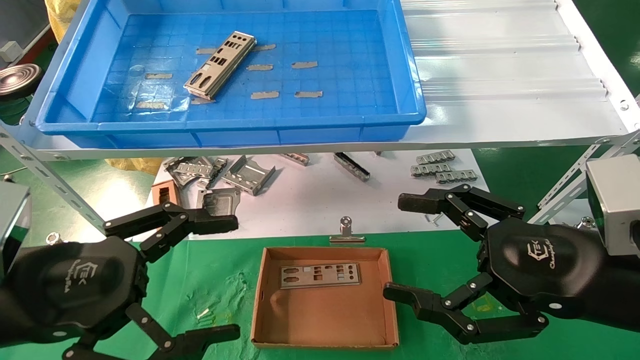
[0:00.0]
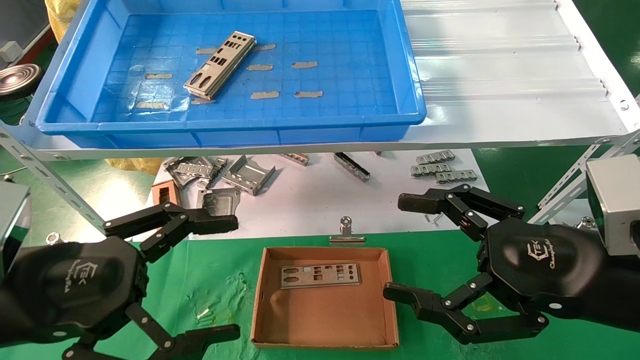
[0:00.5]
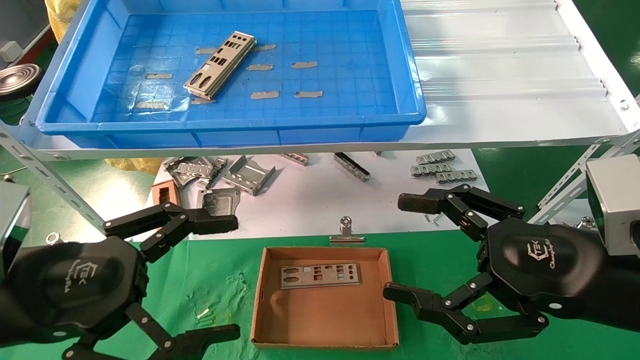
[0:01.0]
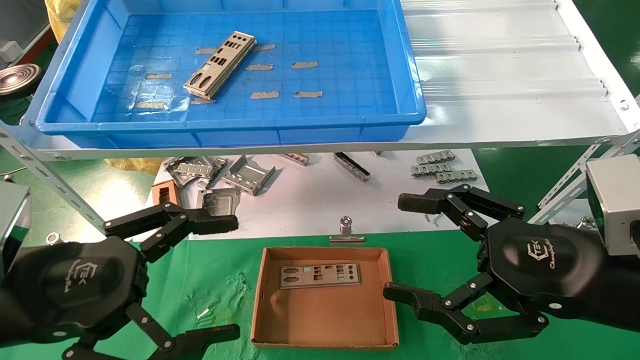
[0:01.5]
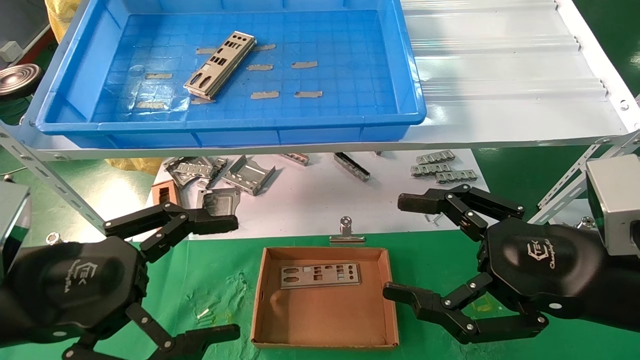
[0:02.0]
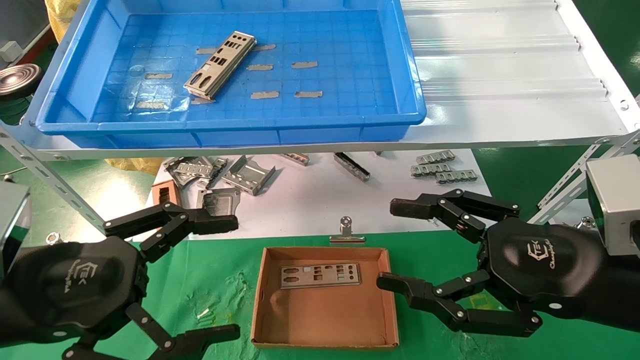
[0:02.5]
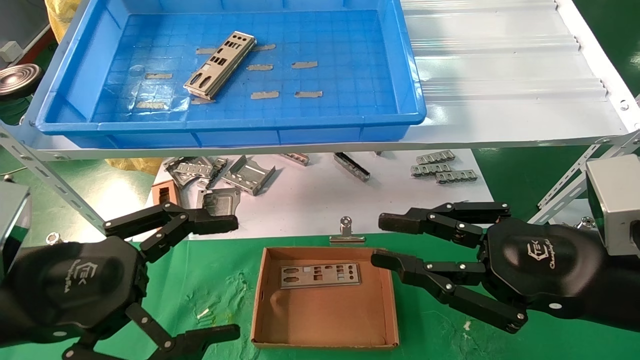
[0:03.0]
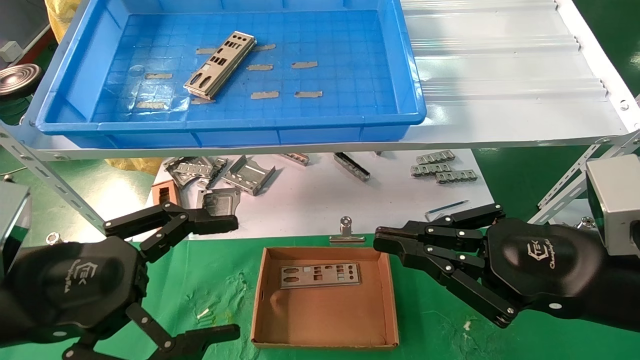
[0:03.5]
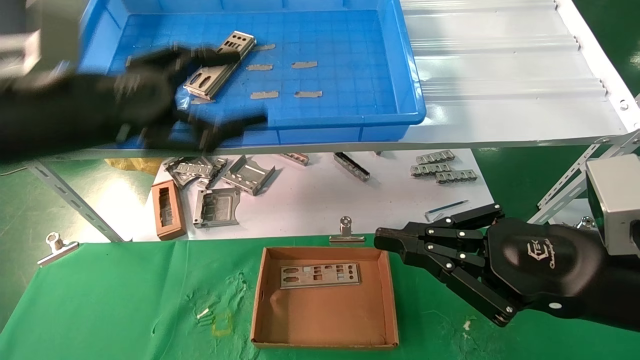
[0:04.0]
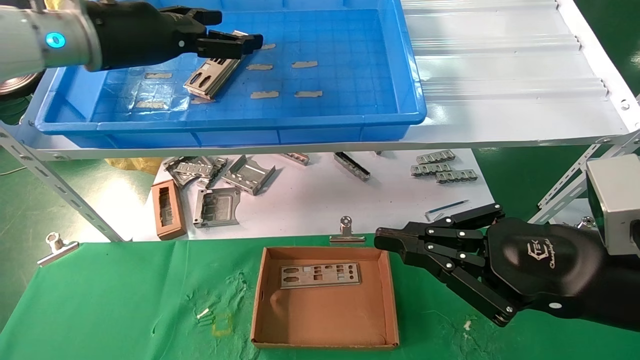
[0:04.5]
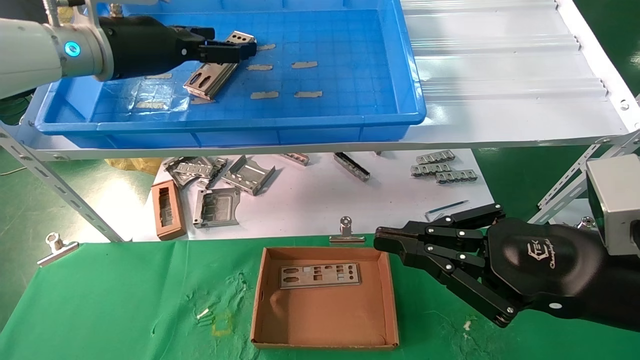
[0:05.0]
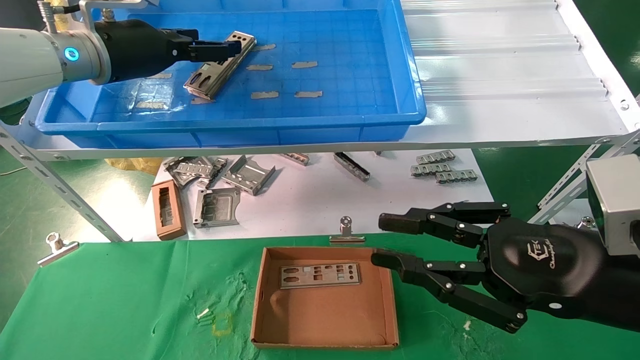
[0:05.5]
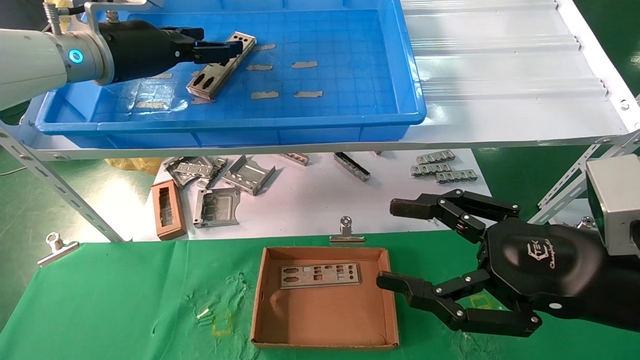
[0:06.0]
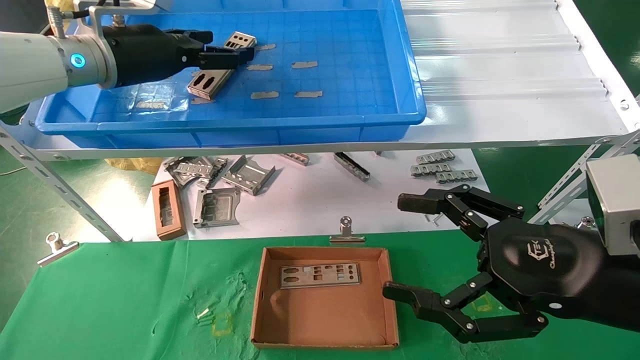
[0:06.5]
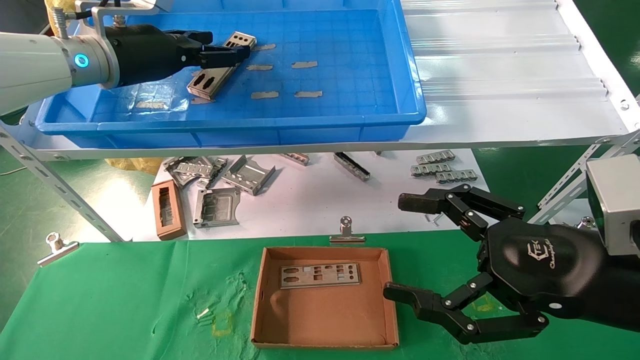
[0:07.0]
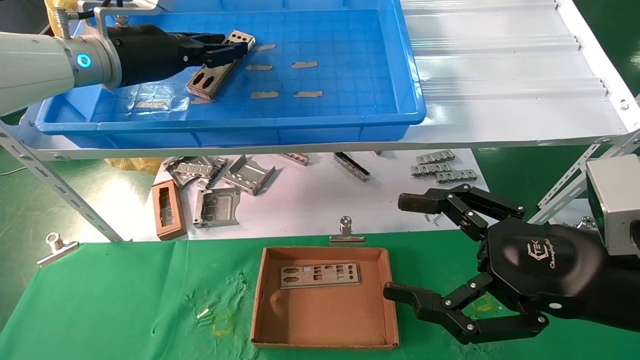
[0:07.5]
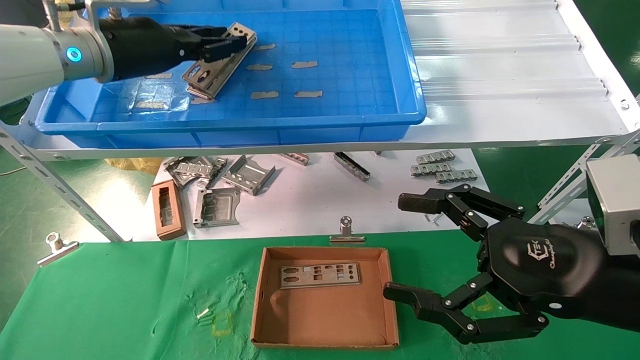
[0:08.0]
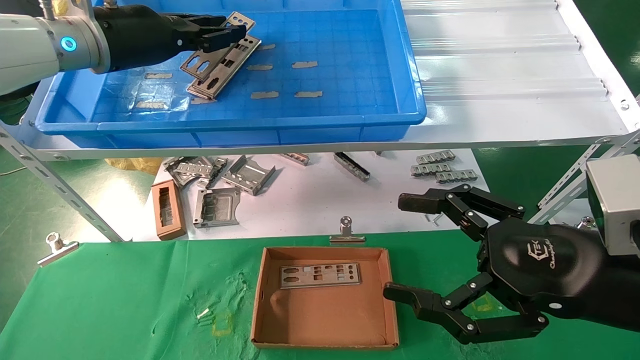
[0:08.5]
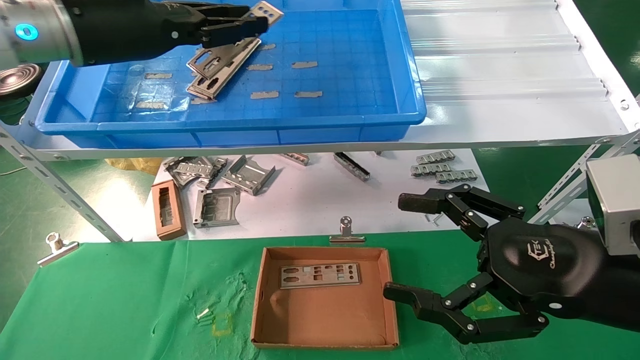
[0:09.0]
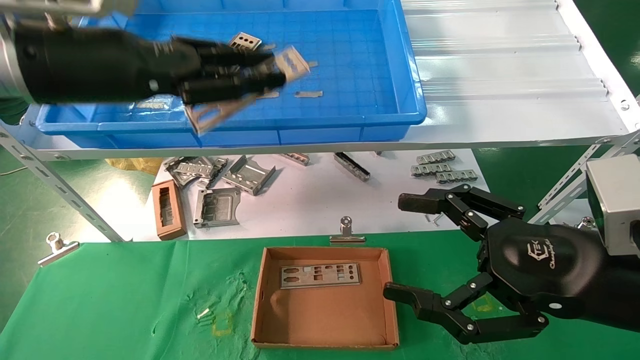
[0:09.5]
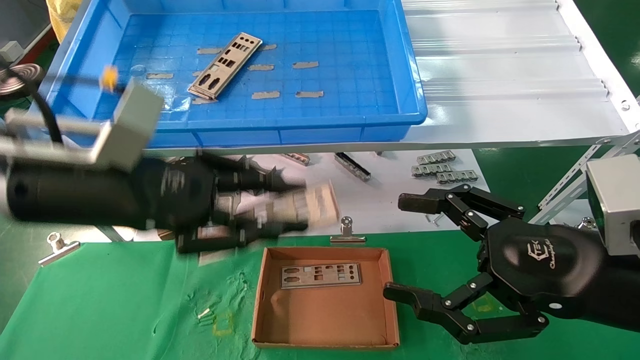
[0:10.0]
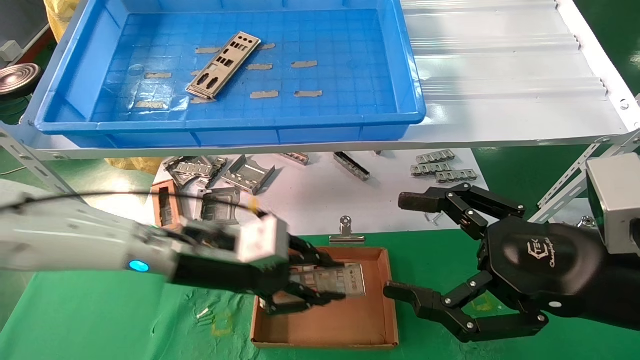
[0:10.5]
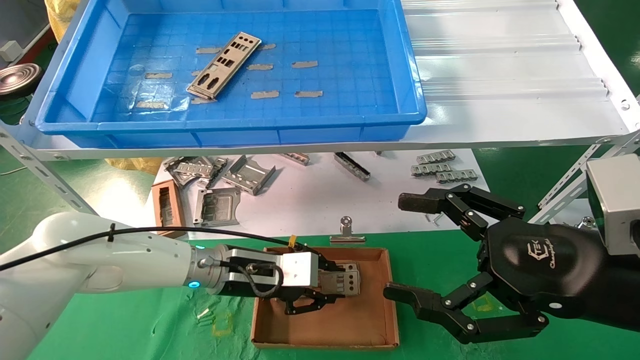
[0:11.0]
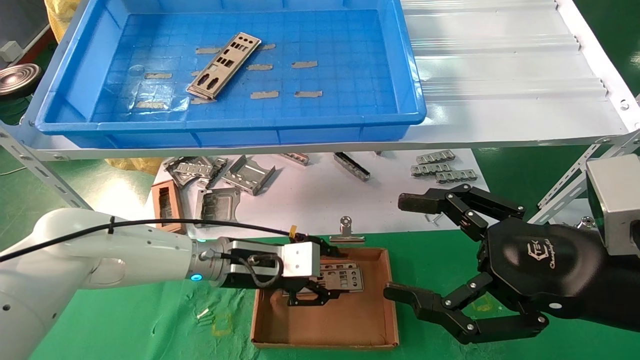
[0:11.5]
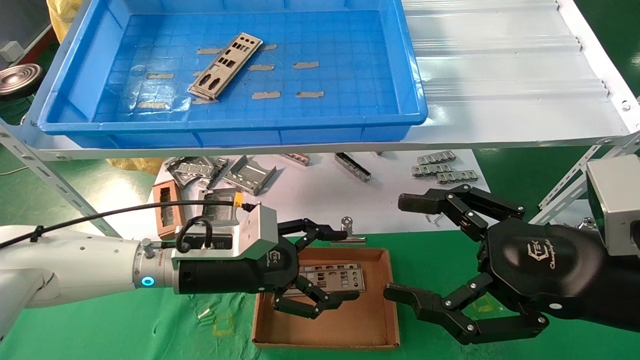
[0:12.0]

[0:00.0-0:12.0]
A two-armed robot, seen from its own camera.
Task of the whole recording: pick up the parts on the tray and put them in the cardboard box.
Step, 0:04.0 to 0:07.5: Pick up the IO bracket from the container box.
Step, 0:08.0 to 0:11.5: Place the IO bracket into the ingredient slot.
0:00.0 to 0:02.0: Both grippers stay about where they are.
0:02.0 to 0:04.0: The left gripper goes roughly 15 cm upward and forward. Meanwhile the right gripper closes its fingers.
0:04.0 to 0:06.0: The right gripper opens its fingers; the left gripper is displaced forward and upward by some 15 cm.
0:06.0 to 0:08.0: The left gripper closes its fingers. Meanwhile the right gripper opens up.
0:08.0 to 0:10.0: The left gripper shifts approximately 20 cm backward and downward.
0:10.0 to 0:12.0: The left gripper travels downward, to the right and forward by about 20 cm, and opens.

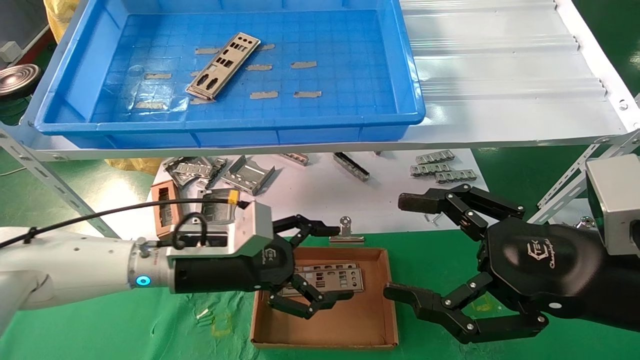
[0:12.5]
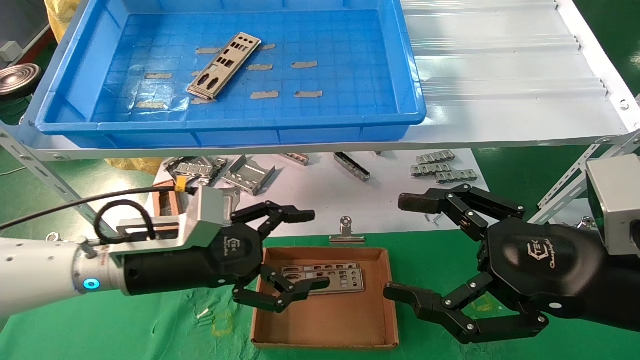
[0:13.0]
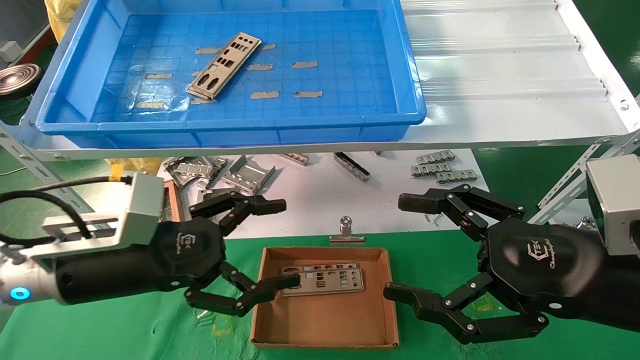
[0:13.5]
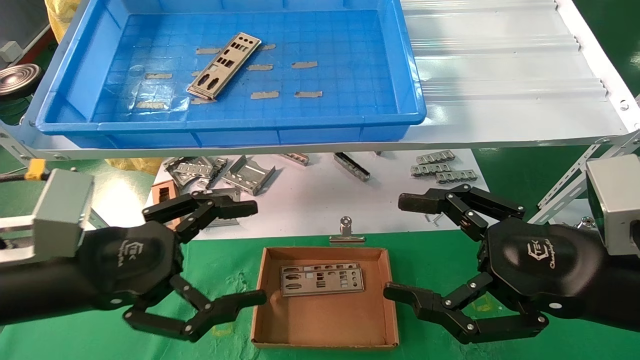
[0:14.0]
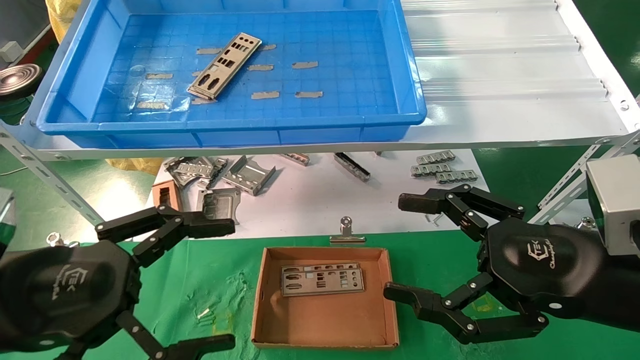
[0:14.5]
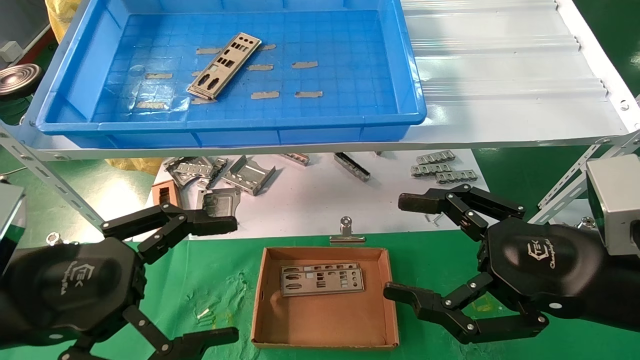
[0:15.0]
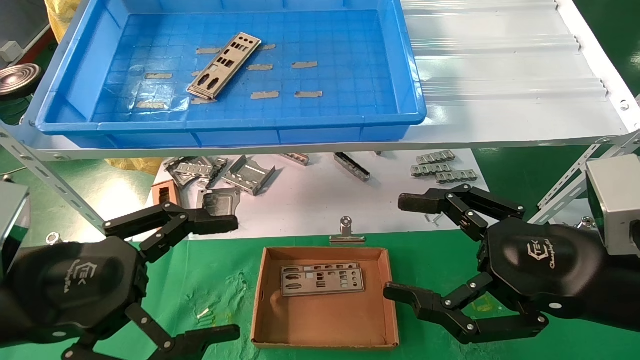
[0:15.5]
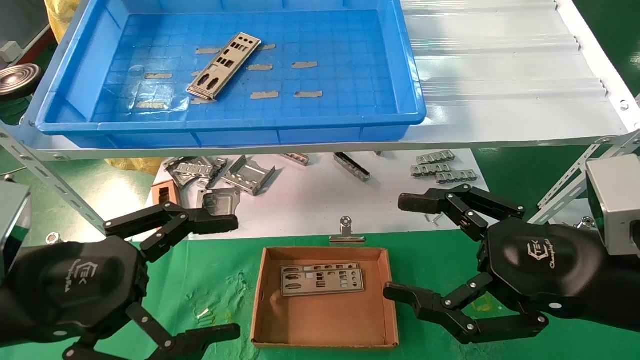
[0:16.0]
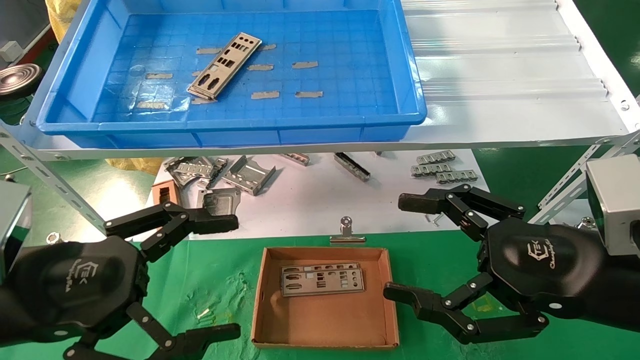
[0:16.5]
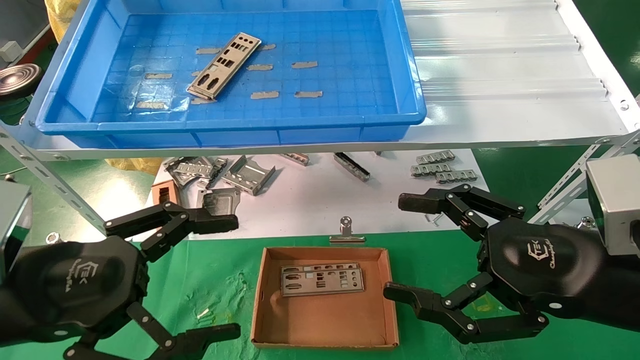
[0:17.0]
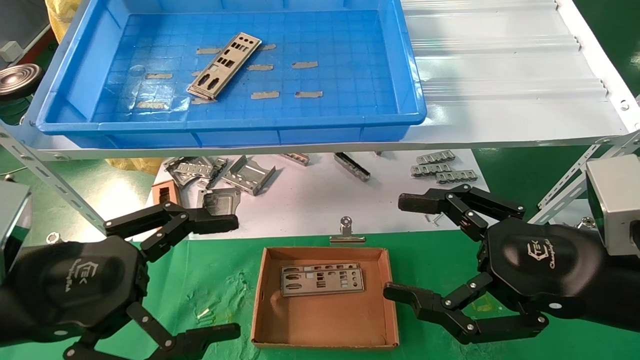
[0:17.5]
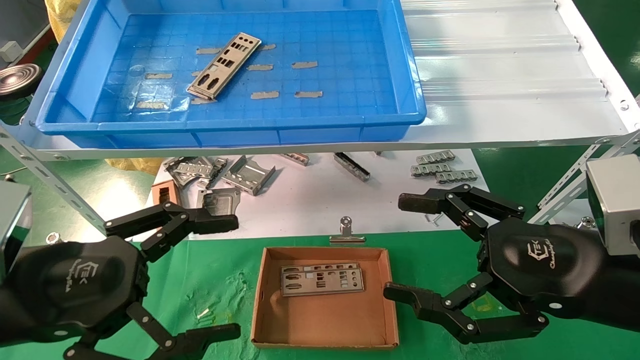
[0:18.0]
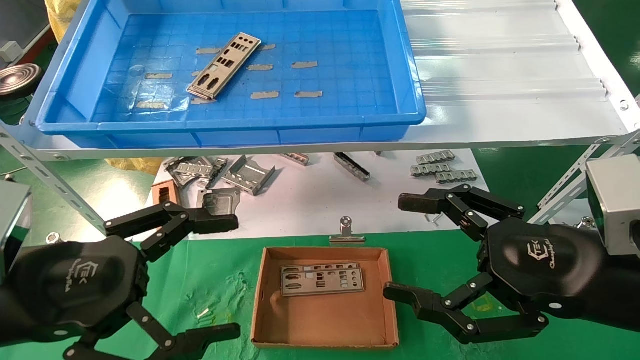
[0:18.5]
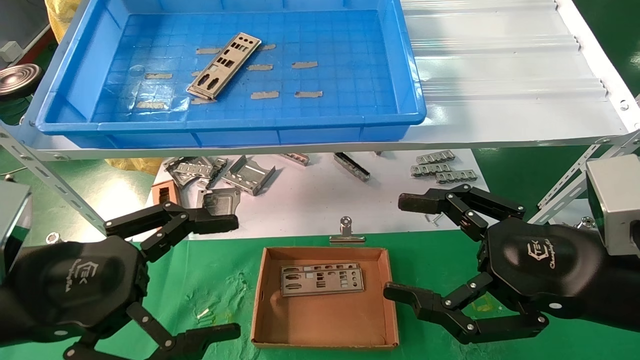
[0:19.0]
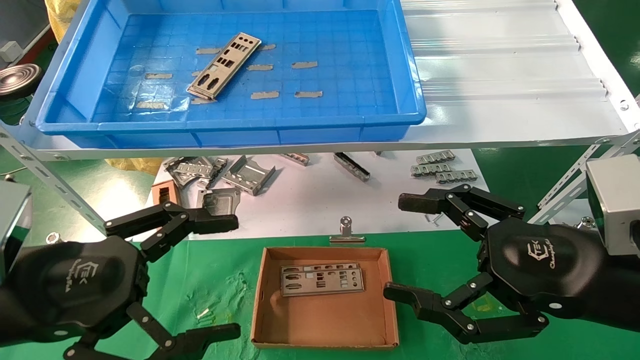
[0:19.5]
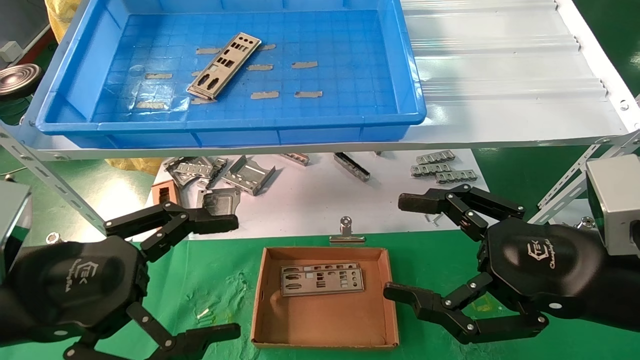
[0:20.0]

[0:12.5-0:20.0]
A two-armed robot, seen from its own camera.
Task of the whole recording: pick up the parts on the tray and put them in the cardboard box.
0:12.5 to 0:14.5: The left gripper travels backward, to the left and upward by some 20 cm.
0:14.5 to 0:20.0: Both grippers stay put.
